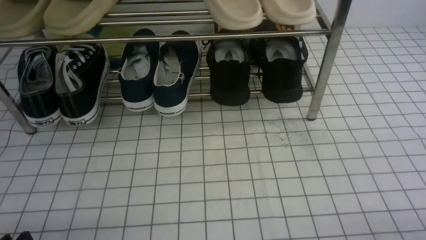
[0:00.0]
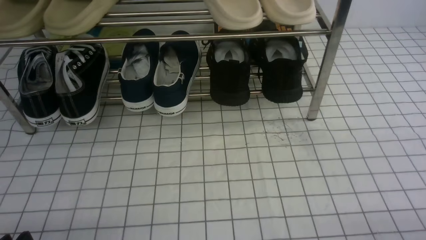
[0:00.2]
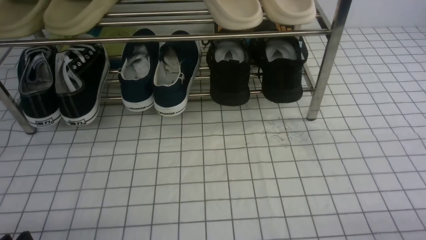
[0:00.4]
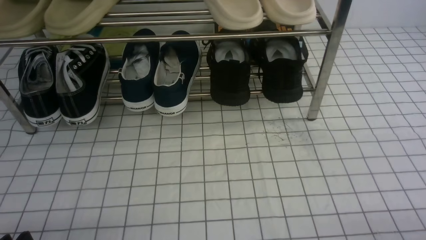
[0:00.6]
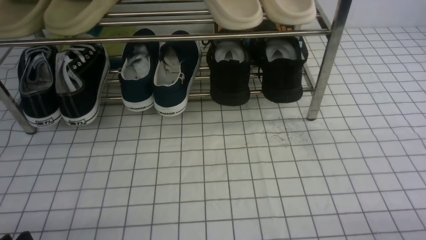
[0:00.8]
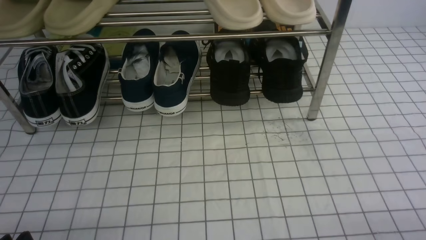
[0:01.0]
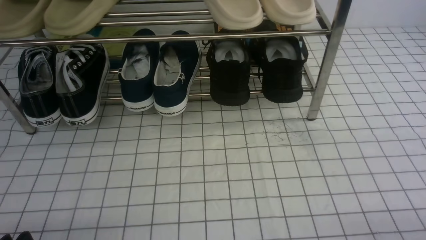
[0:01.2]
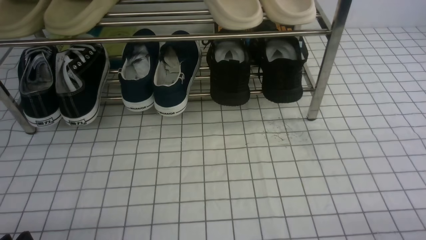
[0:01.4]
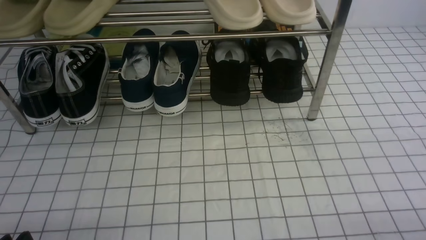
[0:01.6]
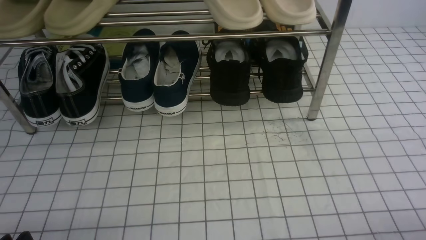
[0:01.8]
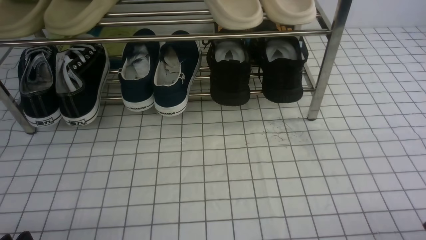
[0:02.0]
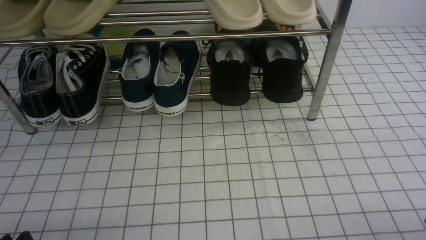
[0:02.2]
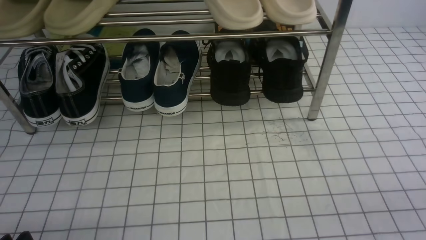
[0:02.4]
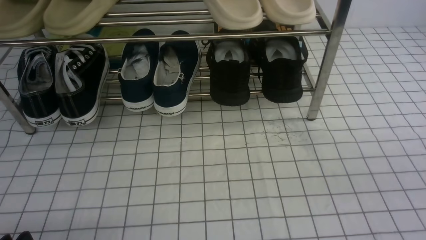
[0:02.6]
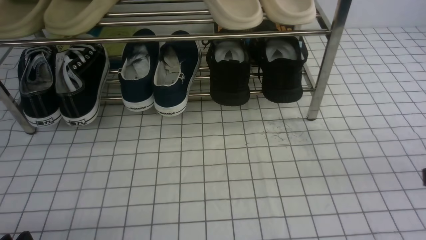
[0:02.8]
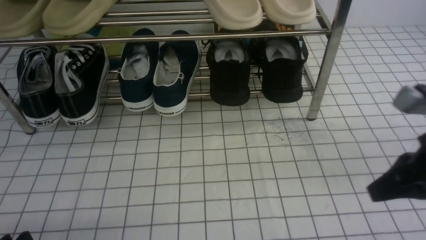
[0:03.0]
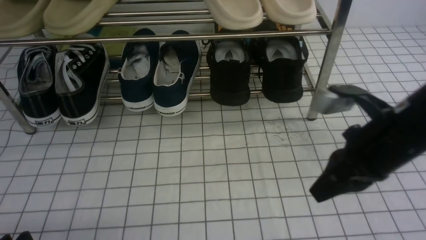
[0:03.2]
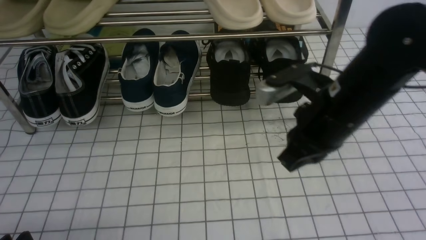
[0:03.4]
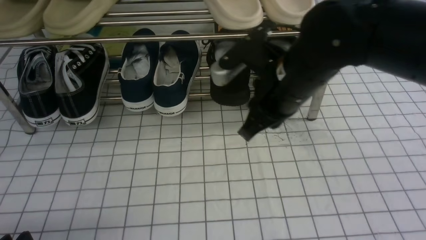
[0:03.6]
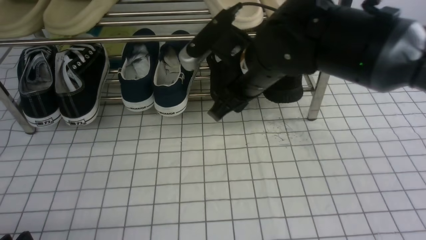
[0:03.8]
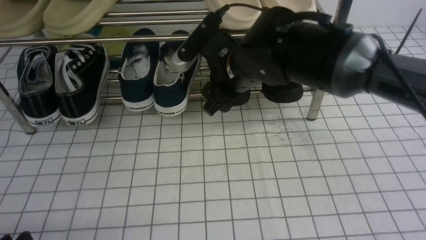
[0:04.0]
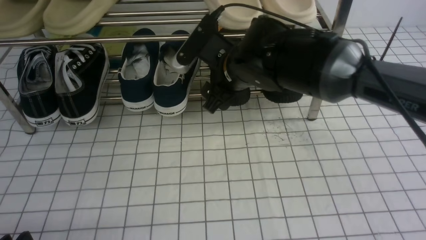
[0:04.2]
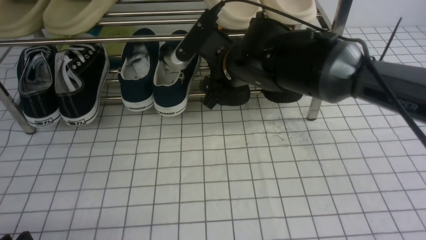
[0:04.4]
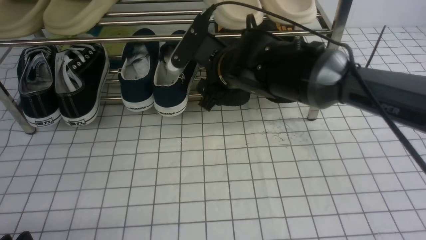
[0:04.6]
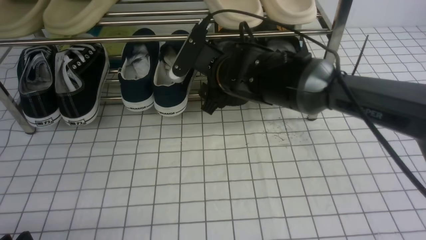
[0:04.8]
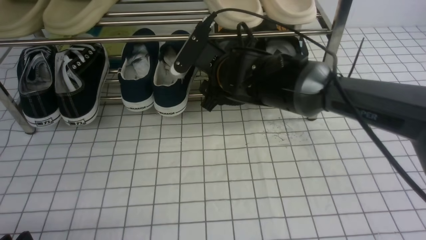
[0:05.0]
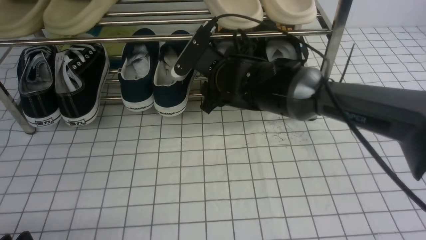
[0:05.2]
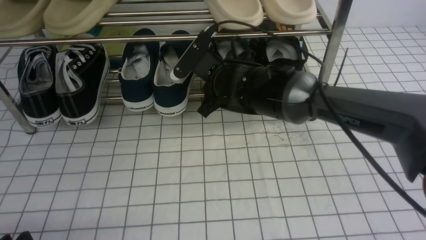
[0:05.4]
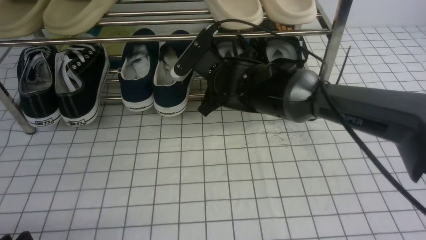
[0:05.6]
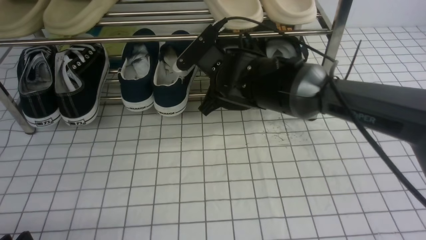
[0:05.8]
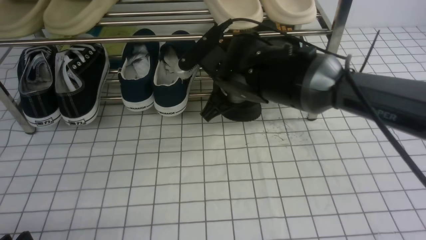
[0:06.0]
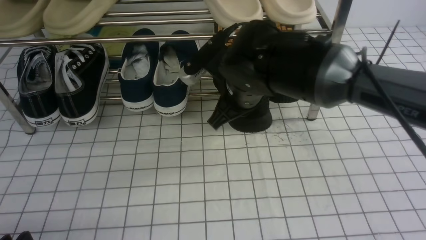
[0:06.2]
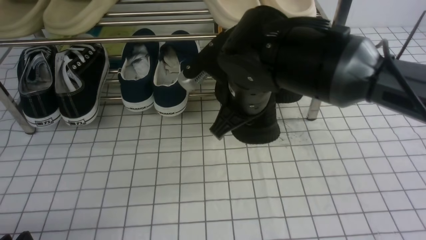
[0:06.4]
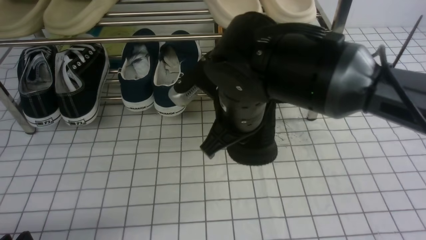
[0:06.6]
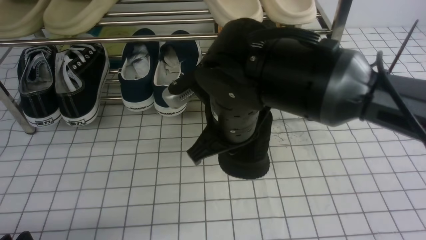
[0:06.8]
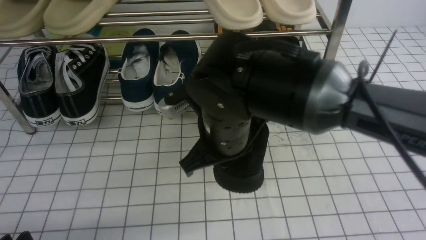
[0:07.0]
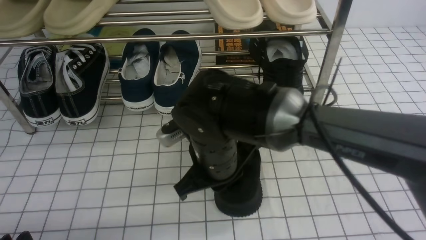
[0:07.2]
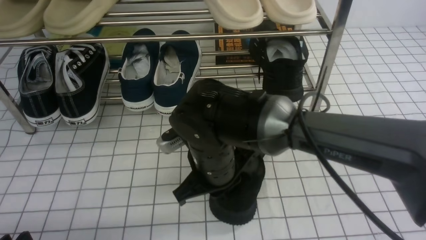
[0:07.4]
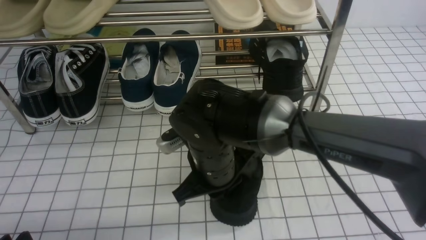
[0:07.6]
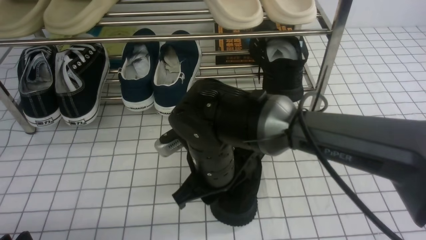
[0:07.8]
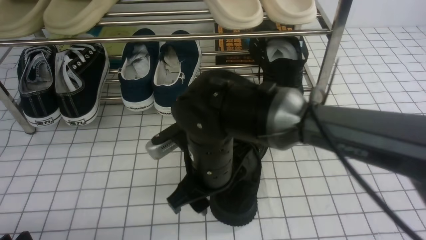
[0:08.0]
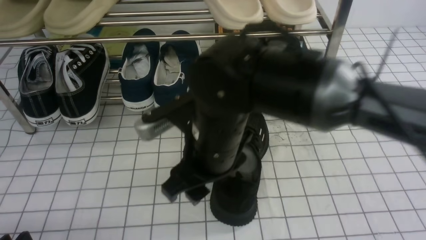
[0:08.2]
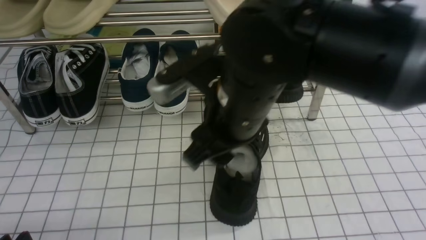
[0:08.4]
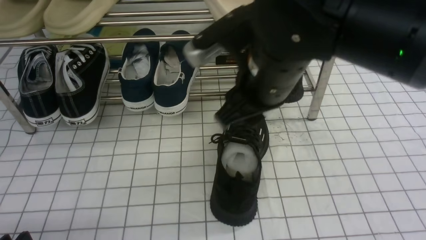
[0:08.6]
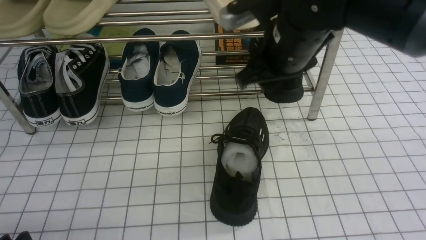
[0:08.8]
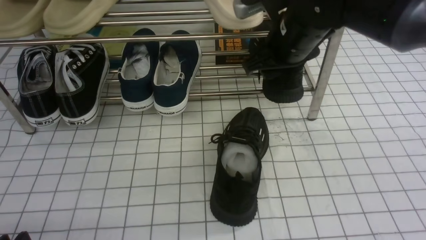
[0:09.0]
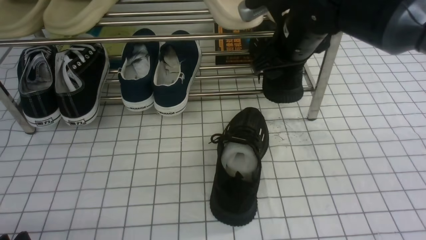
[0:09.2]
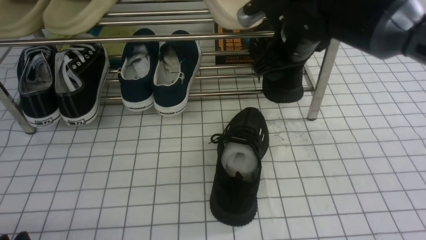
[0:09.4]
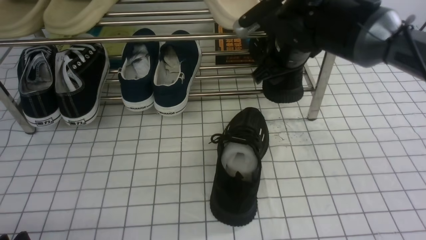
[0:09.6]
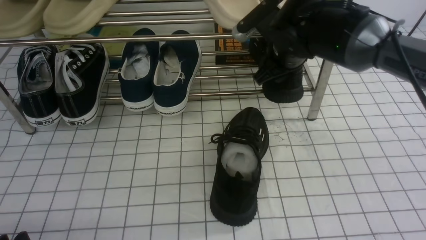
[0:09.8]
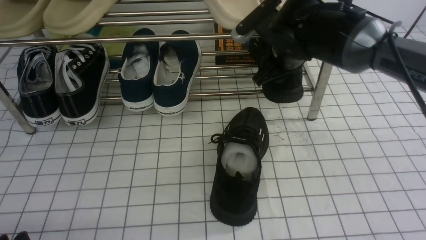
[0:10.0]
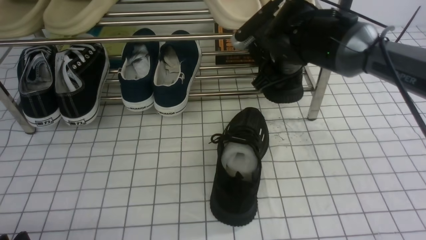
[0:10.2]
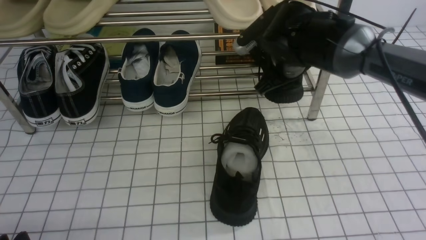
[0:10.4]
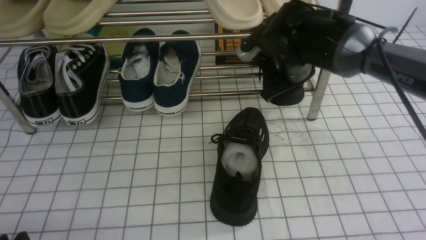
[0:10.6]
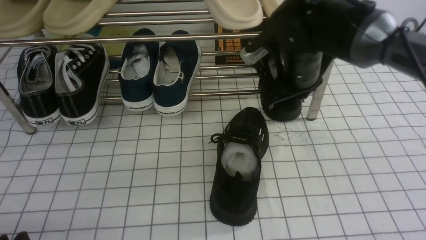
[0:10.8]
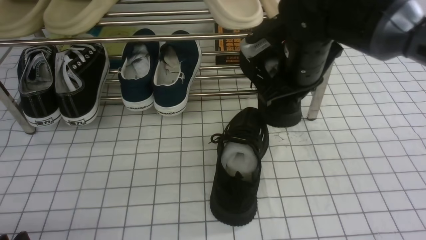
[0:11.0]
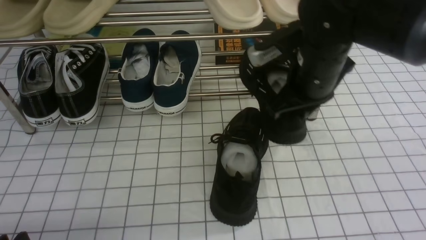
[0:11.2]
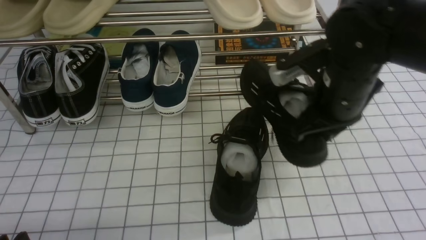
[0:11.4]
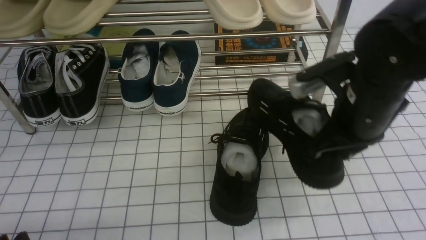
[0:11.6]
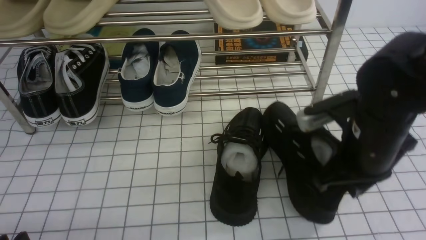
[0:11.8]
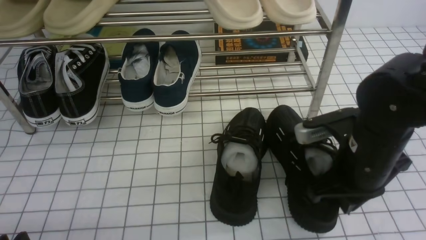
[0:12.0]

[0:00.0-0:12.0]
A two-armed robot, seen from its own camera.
Step, 0:00.0 to 0:05.4: use the right arm to clamp a shoe on the right side of the shoe rack.
Step, 0:05.8 to 0:08.2: use the right arm to take out the clamped shoe from the shoe rack and put it down.
Step, 0:08.4 to 0:10.4: use the right arm to clamp a shoe on the right side of the shoe rack.
0:01.6 to 0:03.0: The right gripper goes approximately 20 cm forward, upward and to the left, and closes.
0:03.0 to 0:04.4: The right gripper moves to the left and forward, about 30 cm, and opens its fingers.
0:04.4 to 0:06.0: The right gripper closes.
0:06.0 to 0:07.6: The right gripper shifts some 10 cm backward and downward.
0:07.6 to 0:09.0: The right gripper shifts approximately 20 cm upward, to the right and forward, and opens its fingers.
0:09.0 to 0:10.4: The right gripper is displaced downward by approximately 5 cm, and closes up.
0:10.4 to 0:12.0: The right gripper heads backward, covering approximately 15 cm.

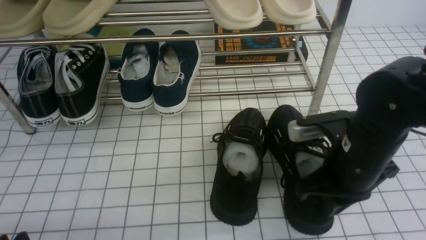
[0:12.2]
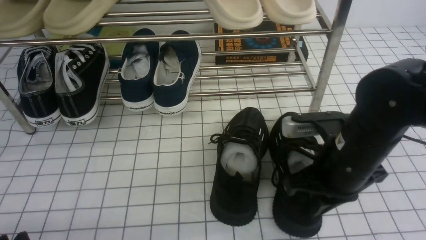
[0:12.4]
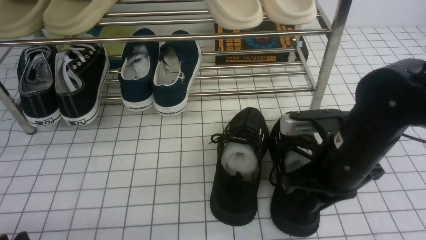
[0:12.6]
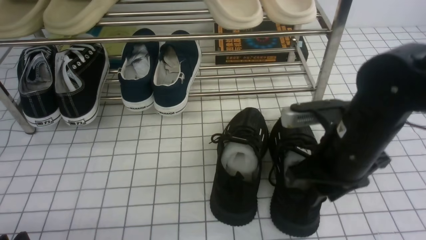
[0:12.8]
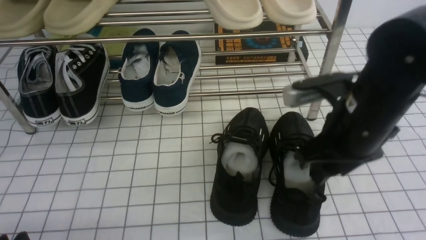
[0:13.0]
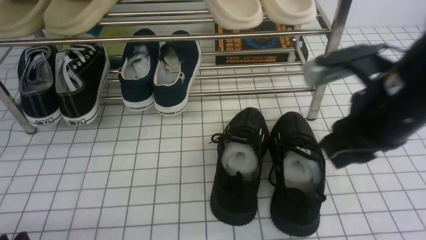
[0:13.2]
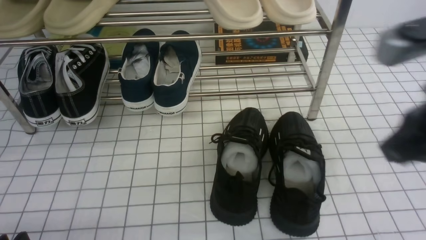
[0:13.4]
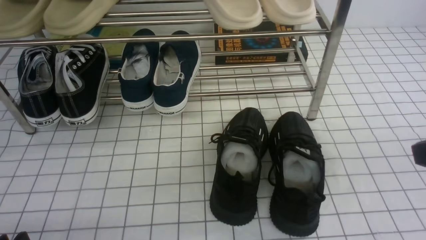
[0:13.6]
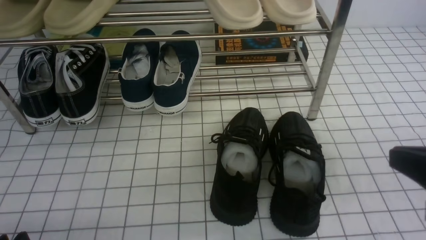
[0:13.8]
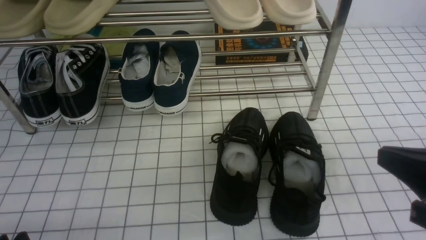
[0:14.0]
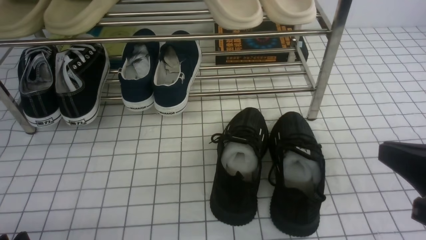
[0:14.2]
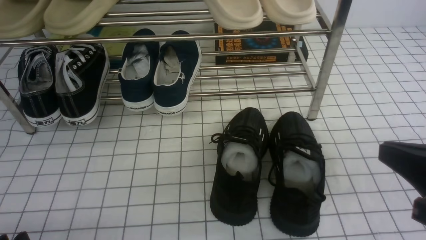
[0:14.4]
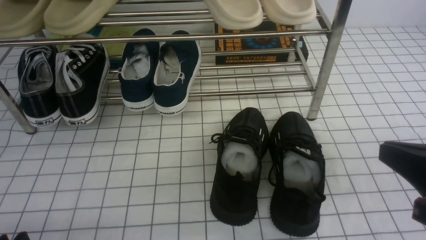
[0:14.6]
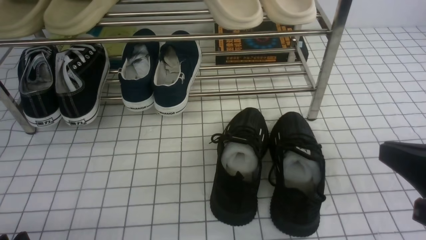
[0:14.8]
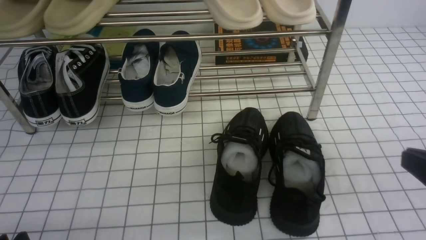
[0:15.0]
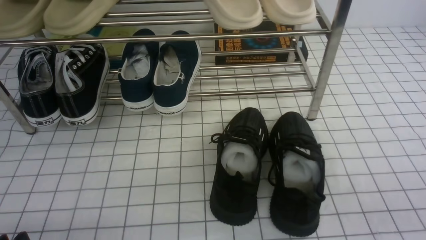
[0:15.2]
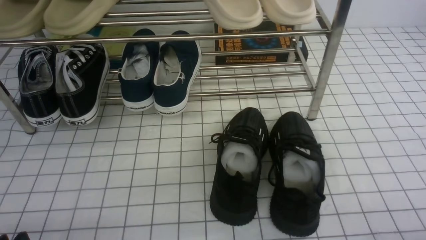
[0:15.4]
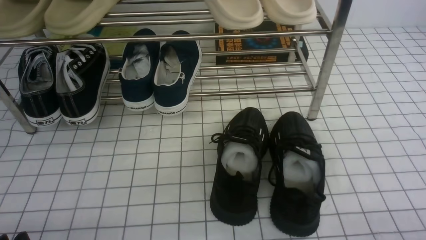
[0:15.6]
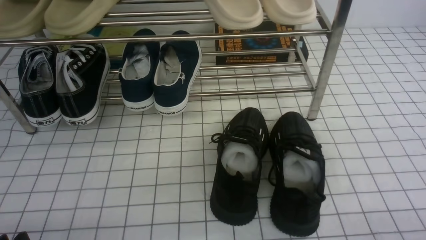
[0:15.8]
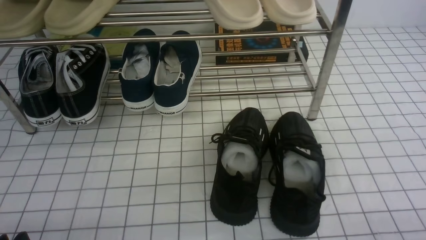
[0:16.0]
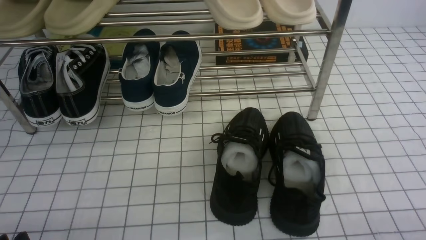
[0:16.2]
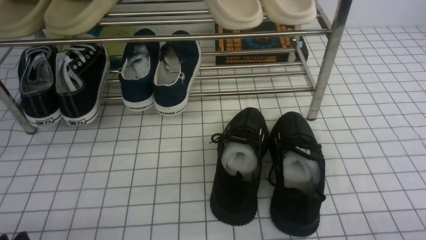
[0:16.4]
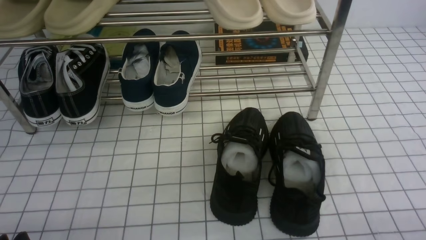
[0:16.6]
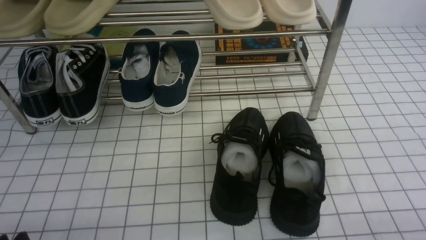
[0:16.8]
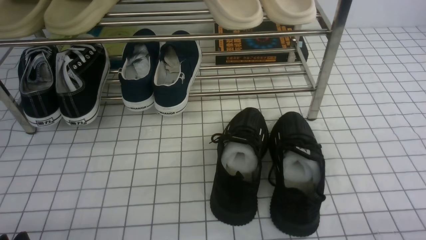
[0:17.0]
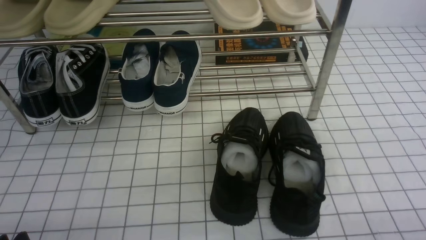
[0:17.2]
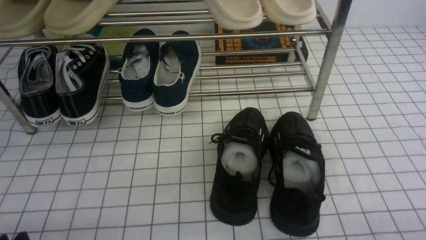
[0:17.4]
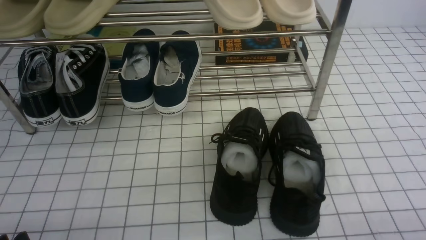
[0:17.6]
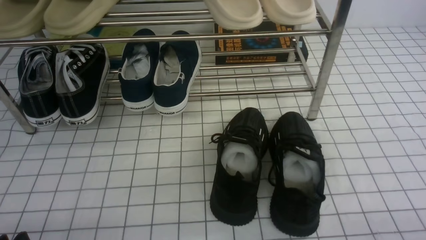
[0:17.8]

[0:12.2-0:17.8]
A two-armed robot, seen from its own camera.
0:12.2 to 0:13.6: The right gripper moves upward, backward and to the right, some 20 cm, and opens and closes again.
0:13.6 to 0:15.0: The right gripper is displaced downward by roughly 10 cm.
0:15.0 to 0:16.4: The right gripper is displaced downward by some 10 cm.
0:16.4 to 0:17.8: Neither gripper changes place.
